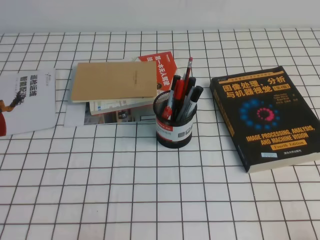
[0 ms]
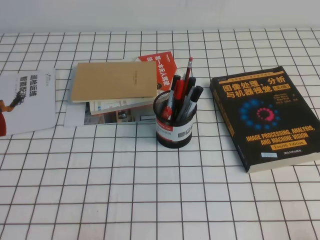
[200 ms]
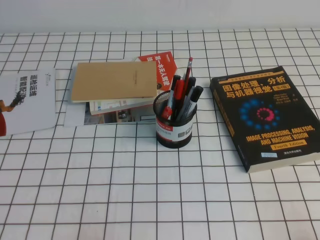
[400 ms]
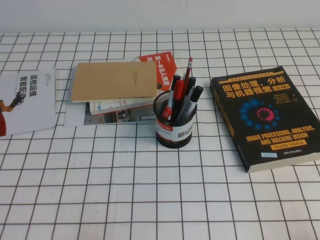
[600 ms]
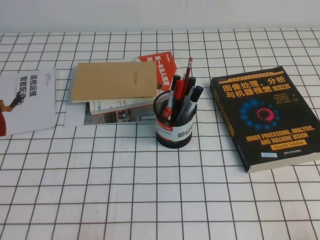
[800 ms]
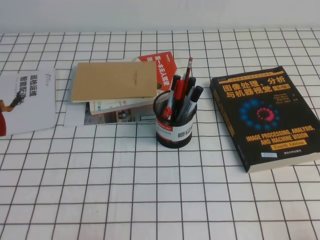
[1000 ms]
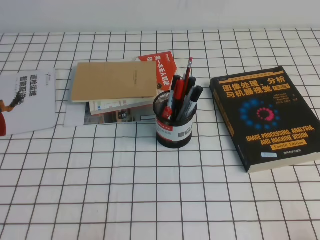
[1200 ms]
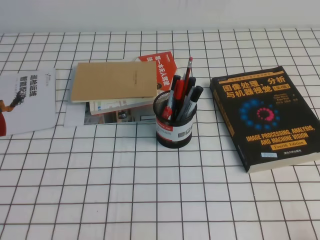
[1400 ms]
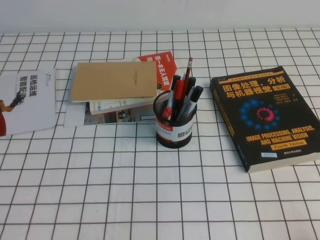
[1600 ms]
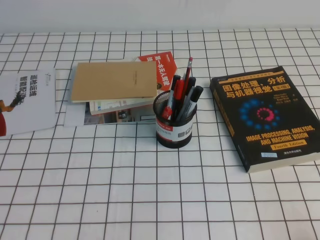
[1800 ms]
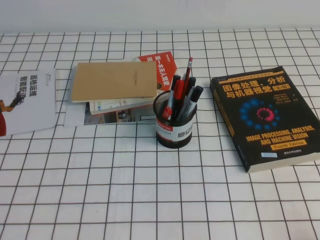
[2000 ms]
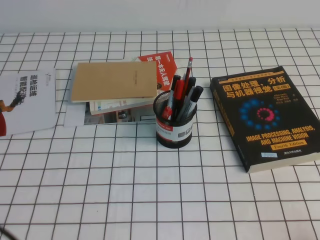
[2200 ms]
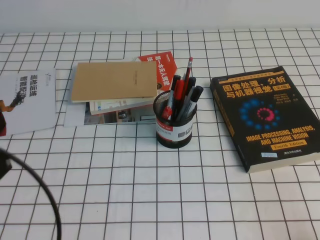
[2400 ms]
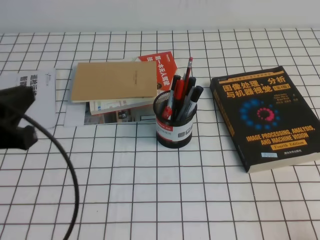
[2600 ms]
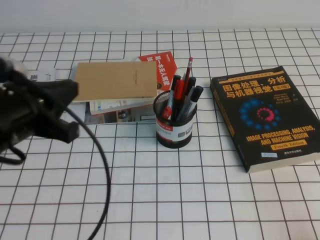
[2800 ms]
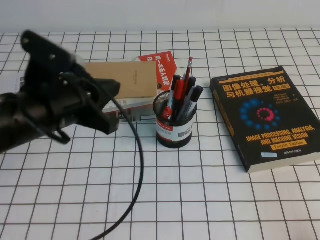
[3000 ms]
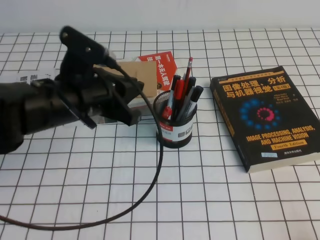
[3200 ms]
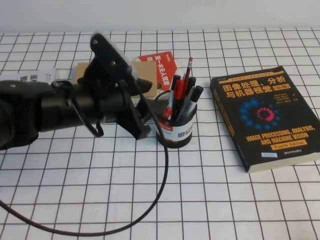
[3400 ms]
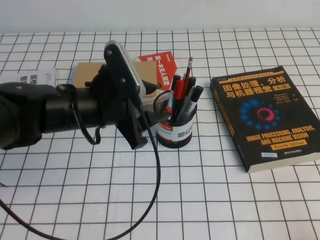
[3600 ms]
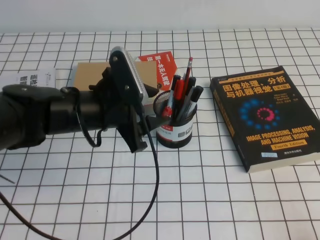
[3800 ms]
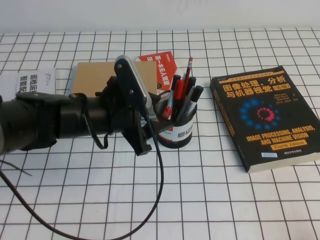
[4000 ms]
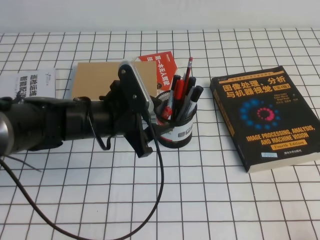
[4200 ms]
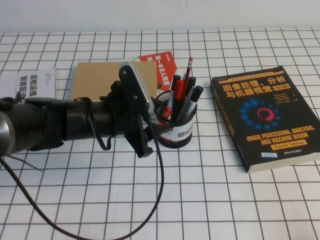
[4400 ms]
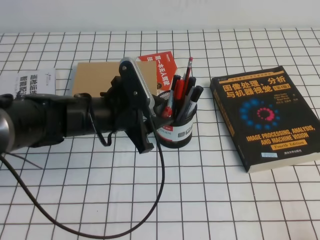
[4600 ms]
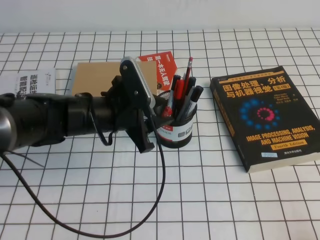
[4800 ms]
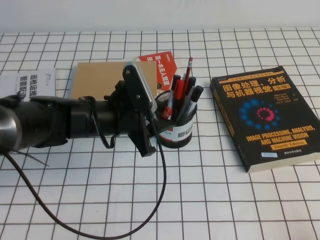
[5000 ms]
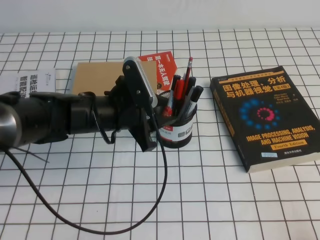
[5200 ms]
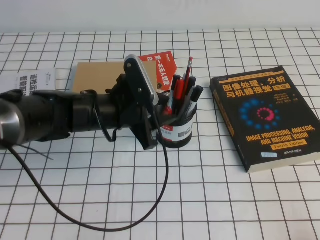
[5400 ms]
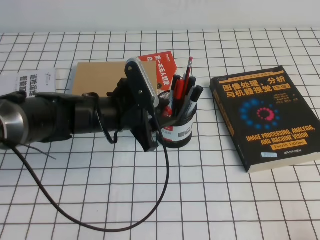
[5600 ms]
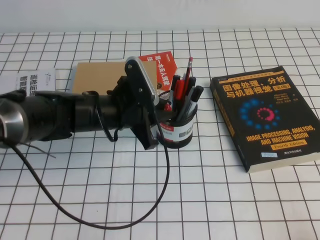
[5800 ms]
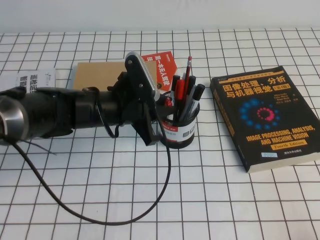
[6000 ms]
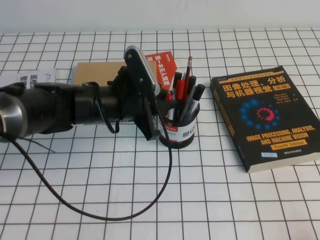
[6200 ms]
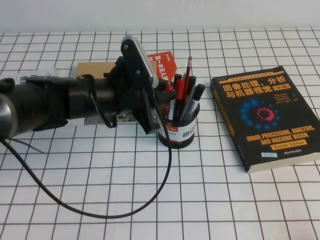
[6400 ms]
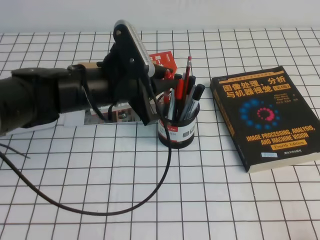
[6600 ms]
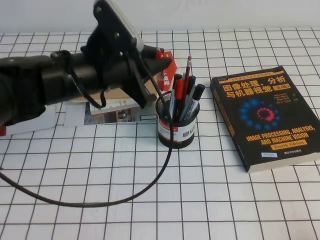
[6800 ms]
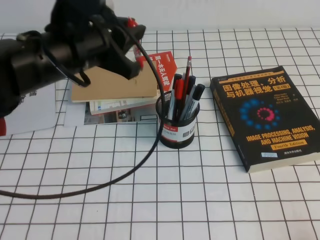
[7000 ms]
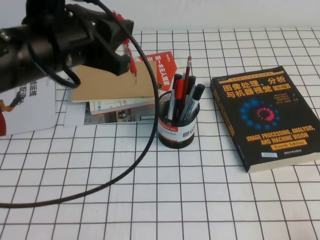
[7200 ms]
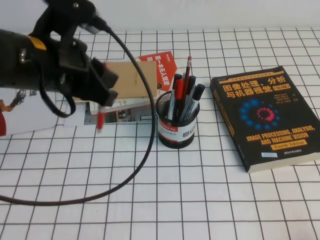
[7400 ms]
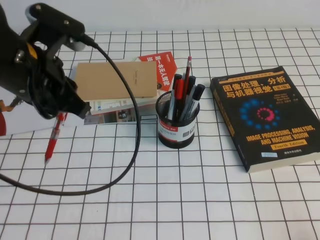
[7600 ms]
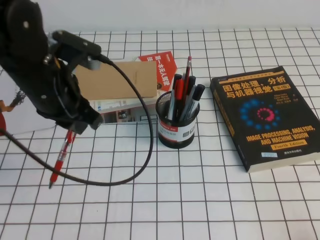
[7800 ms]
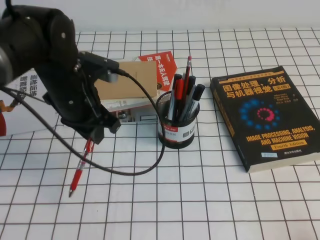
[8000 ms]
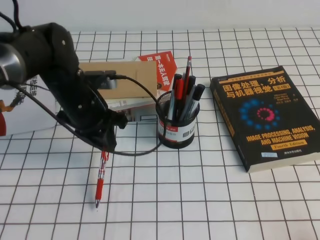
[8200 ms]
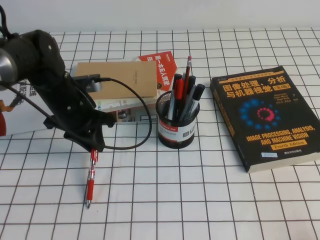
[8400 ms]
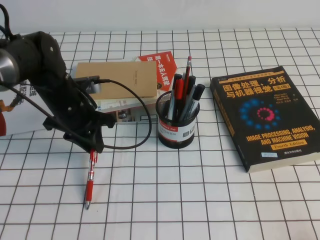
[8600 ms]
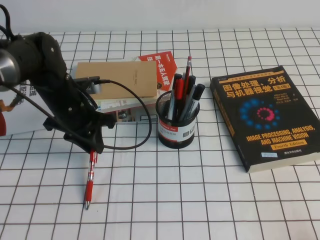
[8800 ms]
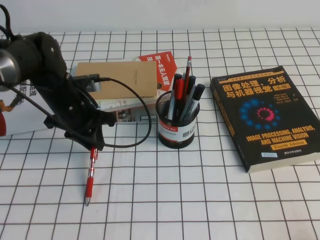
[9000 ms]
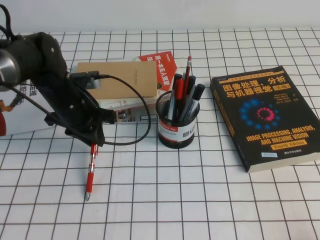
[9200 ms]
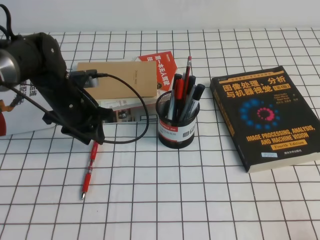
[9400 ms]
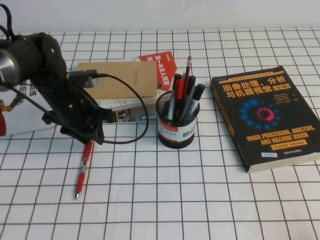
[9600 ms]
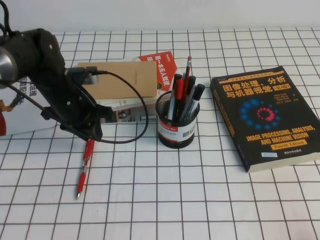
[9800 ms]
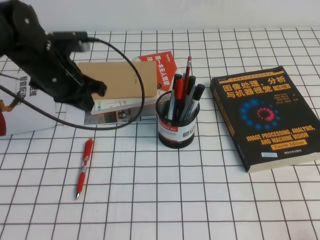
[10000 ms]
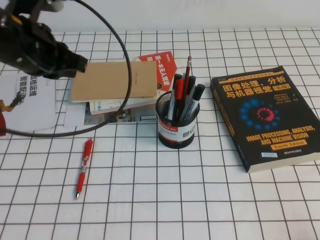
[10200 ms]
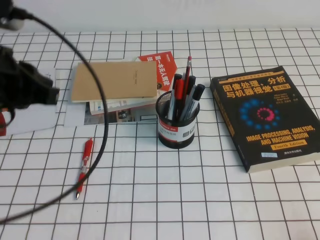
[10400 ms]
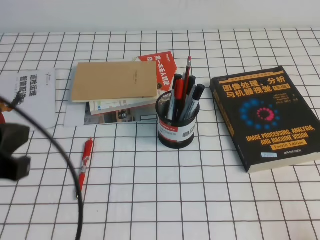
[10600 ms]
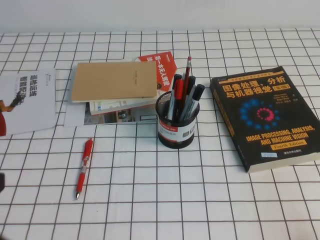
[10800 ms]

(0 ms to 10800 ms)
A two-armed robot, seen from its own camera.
1600 ms - 3000 ms: The left gripper is displaced forward, upward and to the right by approximately 25 cm.
3000 ms - 4600 ms: The left gripper heads downward, to the right and forward, covering about 15 cm, and opens up.
4600 ms - 6200 ms: The left gripper closes its fingers.
6200 ms - 7800 ms: The left gripper shifts about 10 cm upward and to the left.
7800 ms - 9200 ms: The left gripper goes some 15 cm downward and forward.
9200 ms - 10800 ms: The left gripper moves backward and upward, some 35 cm.

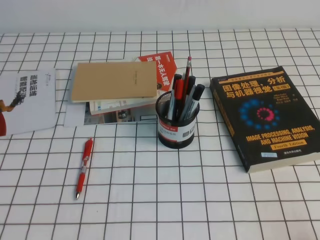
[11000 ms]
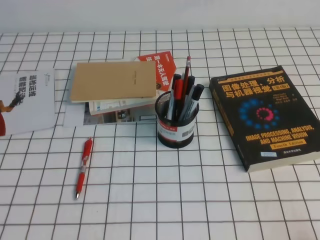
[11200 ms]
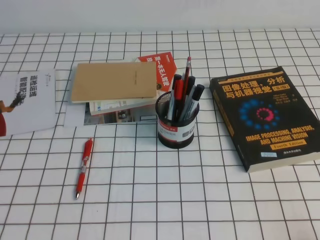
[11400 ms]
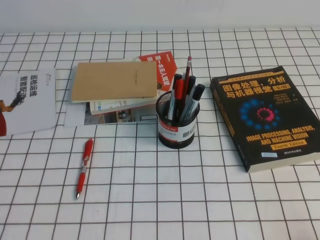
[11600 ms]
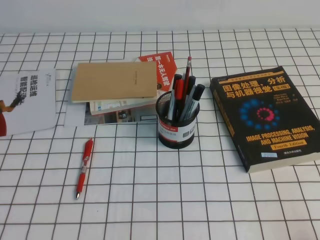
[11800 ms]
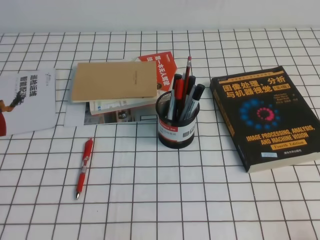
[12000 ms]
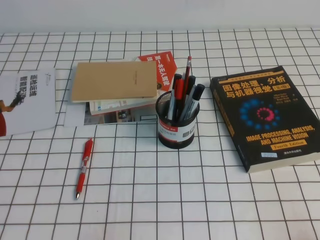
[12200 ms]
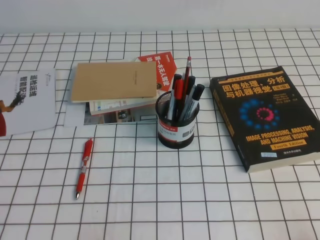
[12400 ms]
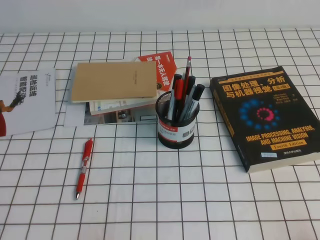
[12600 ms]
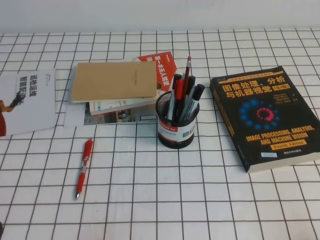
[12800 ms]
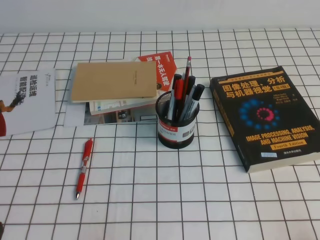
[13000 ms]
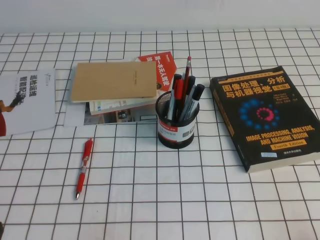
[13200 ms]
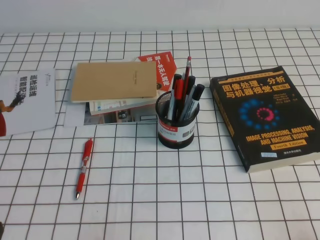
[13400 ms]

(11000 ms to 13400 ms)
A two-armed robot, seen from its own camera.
Step, 11000 ms - 13400 ms: Pick up the pen from the pen holder.
12200 ms - 13400 ms: Both grippers stay put.

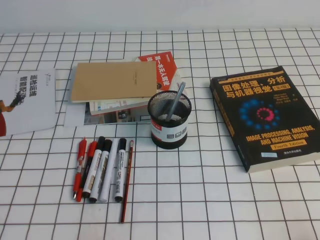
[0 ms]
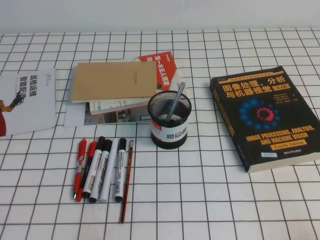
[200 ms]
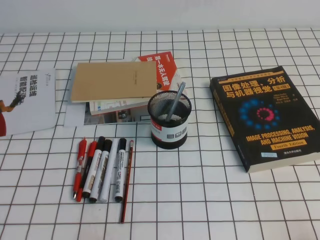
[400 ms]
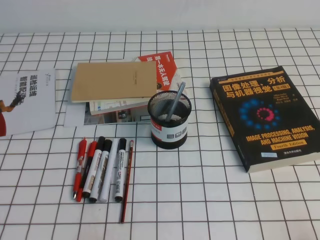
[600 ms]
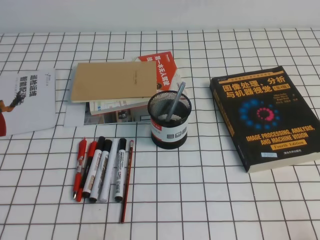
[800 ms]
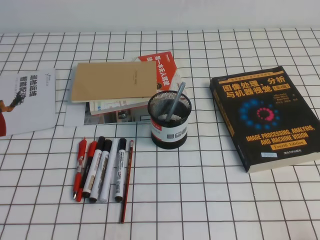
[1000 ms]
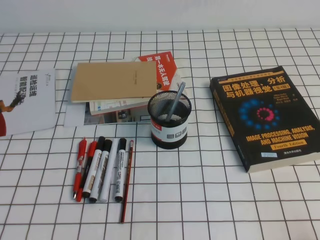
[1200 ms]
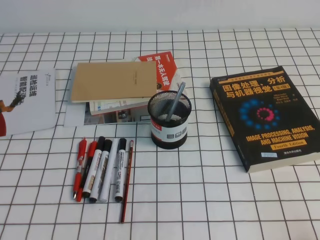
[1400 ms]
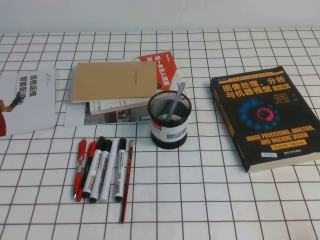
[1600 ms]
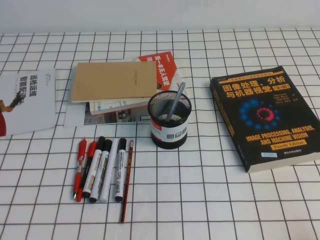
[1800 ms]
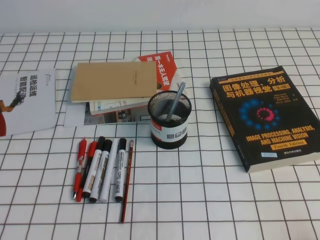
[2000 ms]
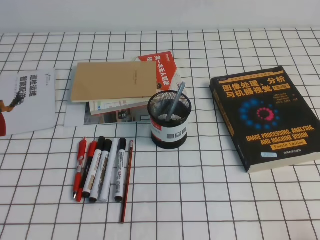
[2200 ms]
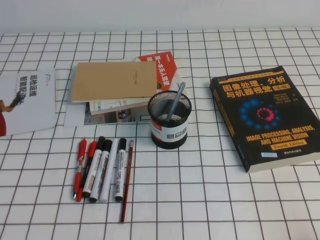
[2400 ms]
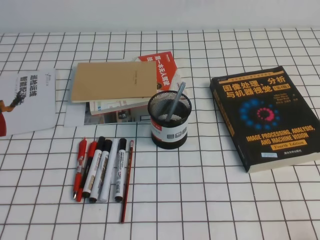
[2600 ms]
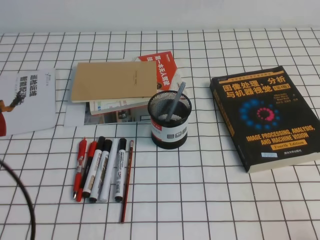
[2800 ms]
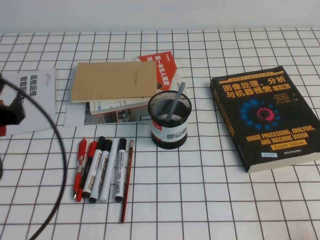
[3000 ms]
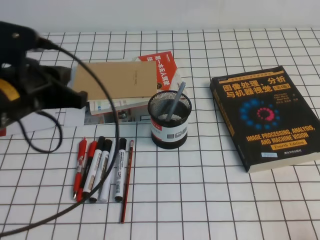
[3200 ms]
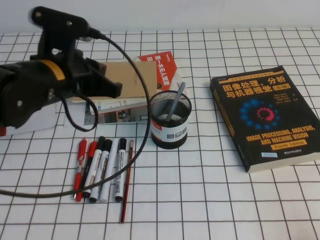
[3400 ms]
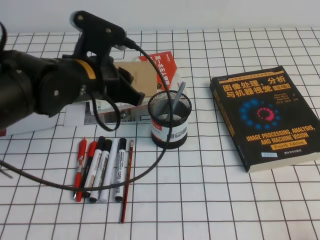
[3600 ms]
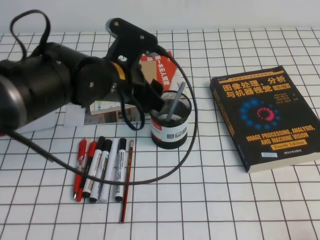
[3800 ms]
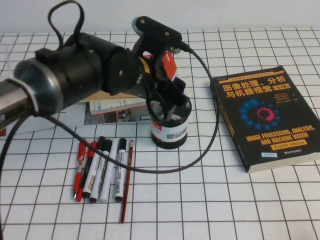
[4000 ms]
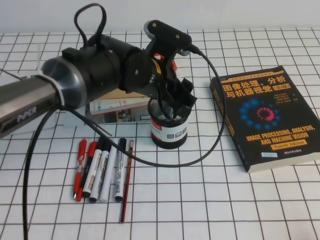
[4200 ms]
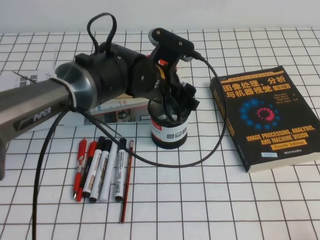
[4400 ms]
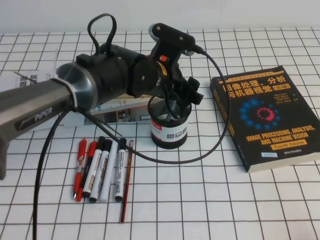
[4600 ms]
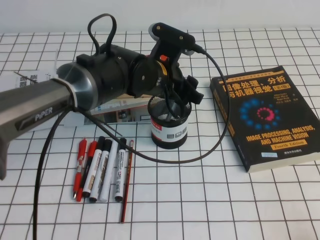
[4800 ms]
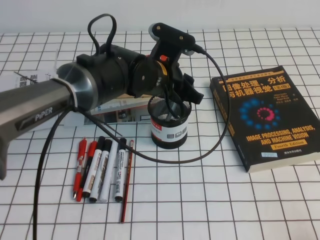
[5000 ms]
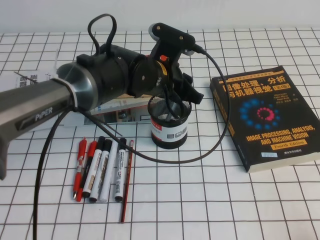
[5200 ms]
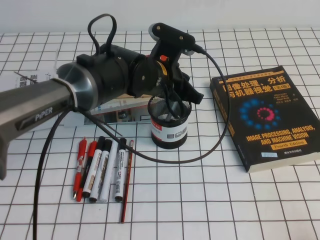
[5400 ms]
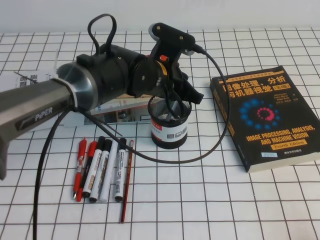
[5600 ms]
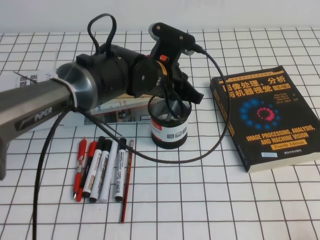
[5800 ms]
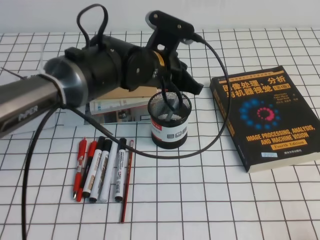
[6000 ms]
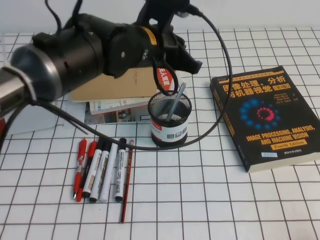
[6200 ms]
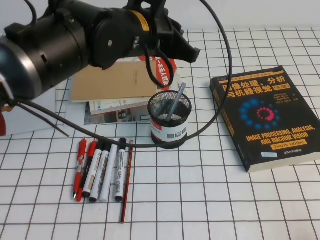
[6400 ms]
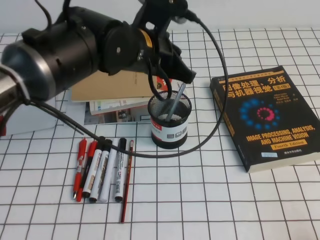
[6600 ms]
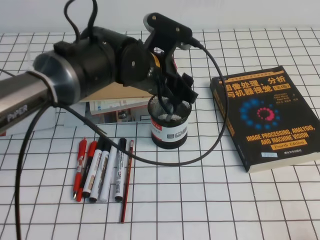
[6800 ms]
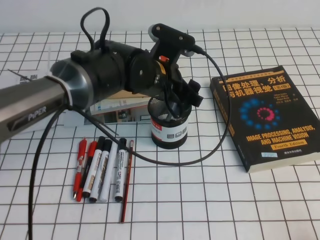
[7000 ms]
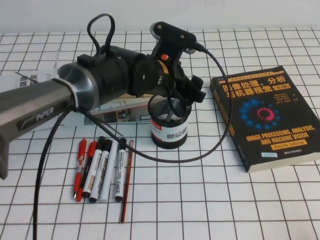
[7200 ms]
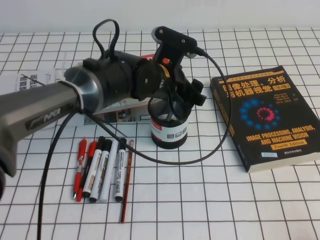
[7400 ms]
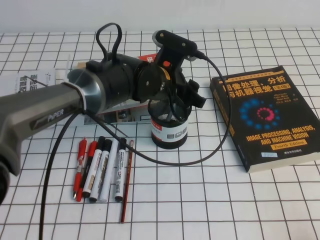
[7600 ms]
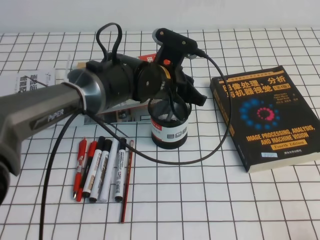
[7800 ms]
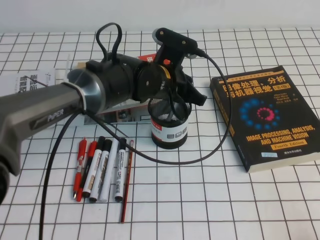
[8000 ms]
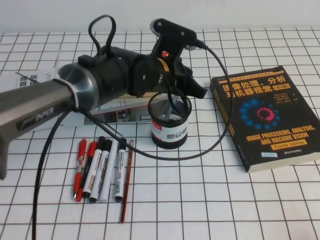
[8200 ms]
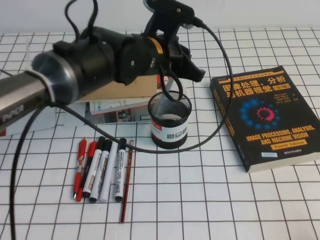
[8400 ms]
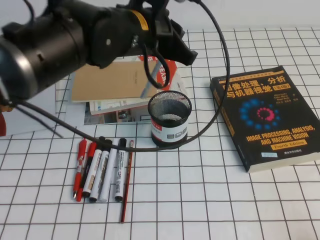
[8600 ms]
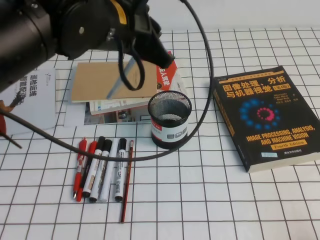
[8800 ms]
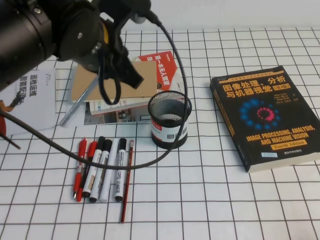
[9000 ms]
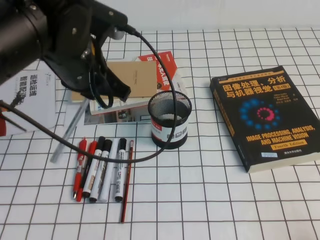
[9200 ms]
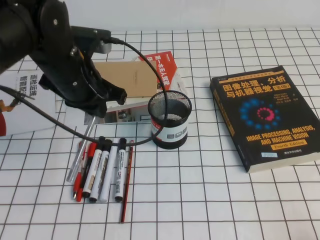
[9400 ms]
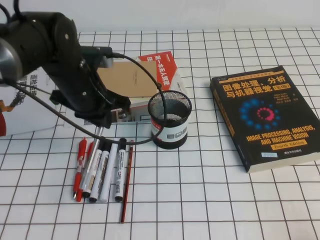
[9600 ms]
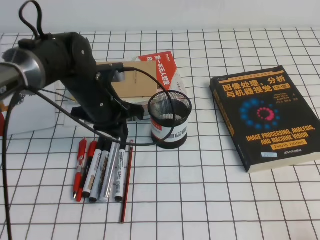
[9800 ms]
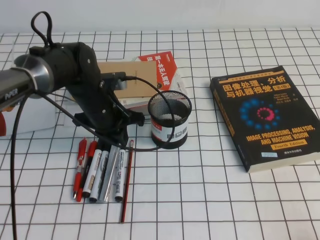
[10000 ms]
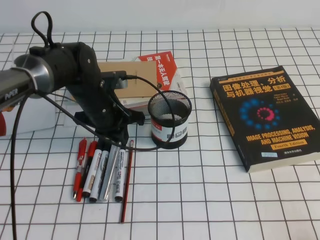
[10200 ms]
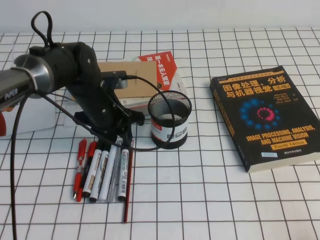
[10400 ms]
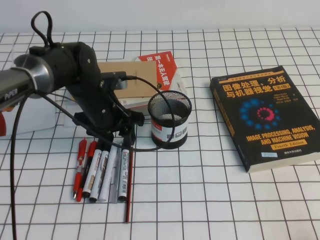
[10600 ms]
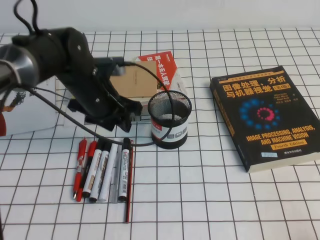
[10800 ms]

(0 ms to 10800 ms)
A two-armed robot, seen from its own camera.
1600 ms - 3000 ms: The left gripper travels upward and forward by approximately 15 cm.
3000 ms - 4600 ms: The left gripper travels to the right and forward by some 30 cm, and opens.
4600 ms - 6200 ms: The left gripper moves upward, roughly 5 cm, and closes up.
6200 ms - 7800 ms: The left gripper moves downward, about 10 cm, and opens its fingers.
7800 ms - 9200 ms: The left gripper moves upward, to the left and backward, about 15 cm.
9200 ms - 10800 ms: The left gripper goes some 10 cm downward and forward, and opens its fingers.
